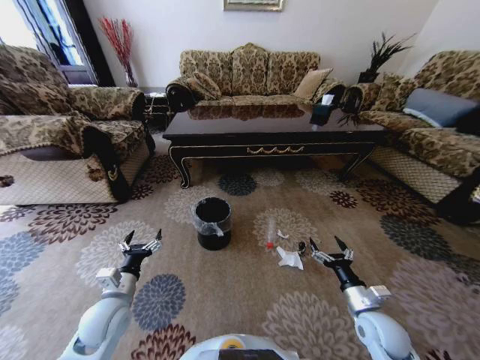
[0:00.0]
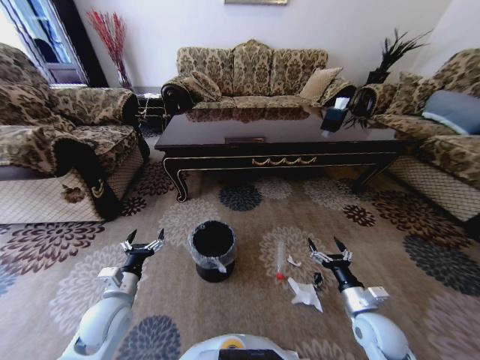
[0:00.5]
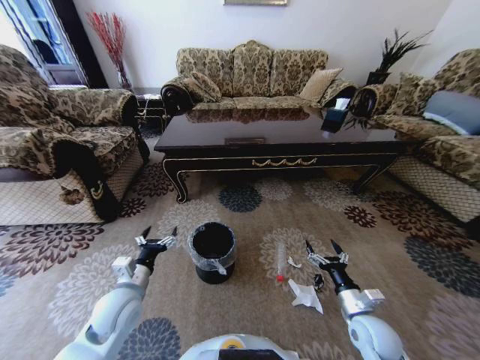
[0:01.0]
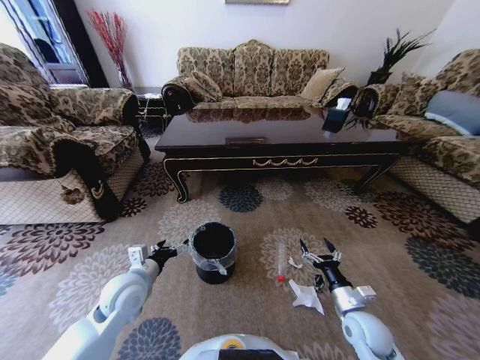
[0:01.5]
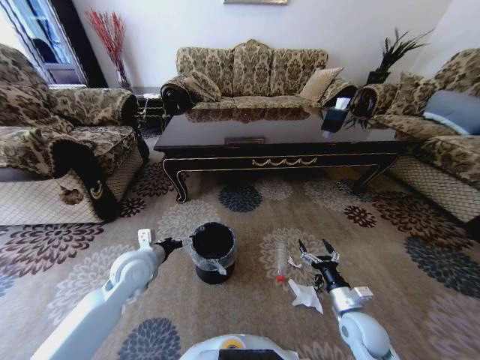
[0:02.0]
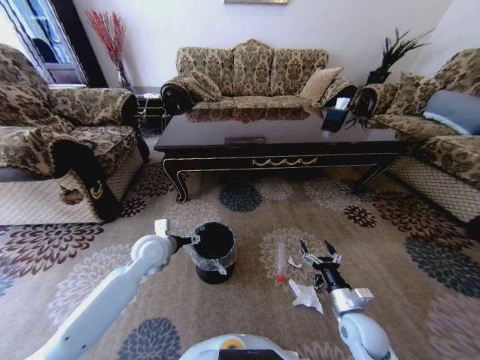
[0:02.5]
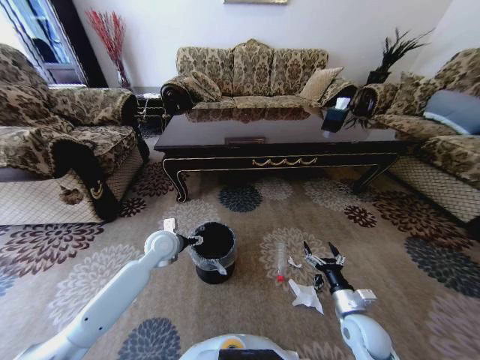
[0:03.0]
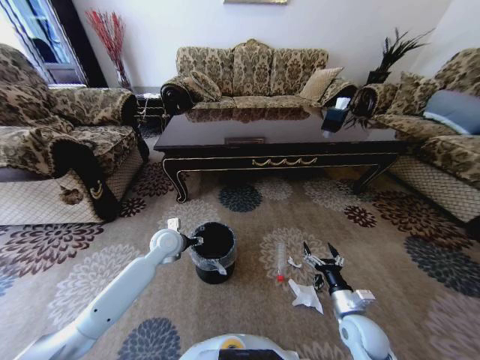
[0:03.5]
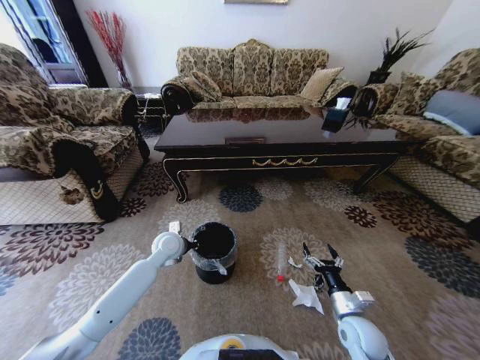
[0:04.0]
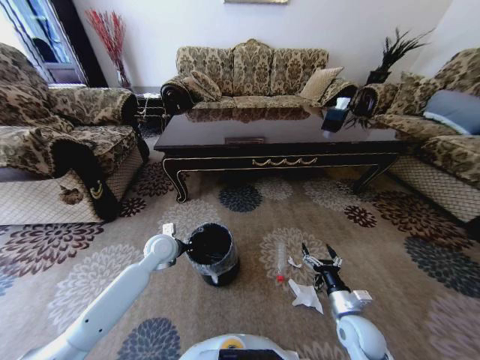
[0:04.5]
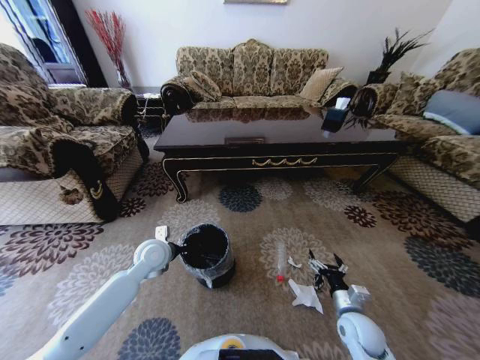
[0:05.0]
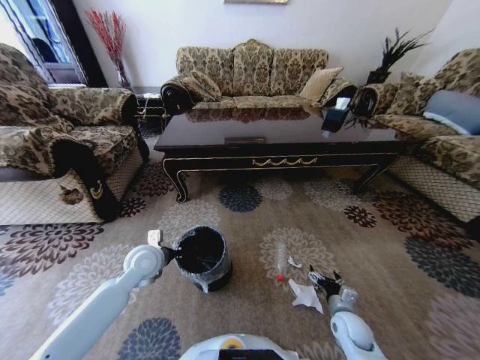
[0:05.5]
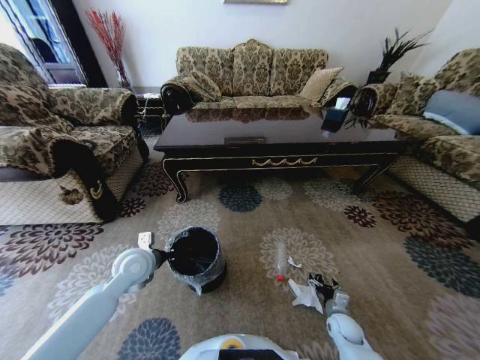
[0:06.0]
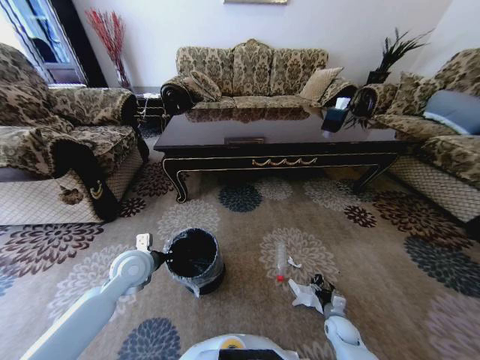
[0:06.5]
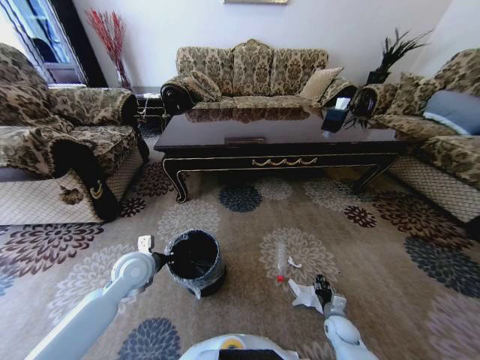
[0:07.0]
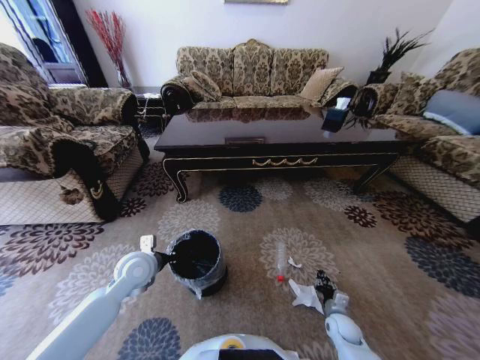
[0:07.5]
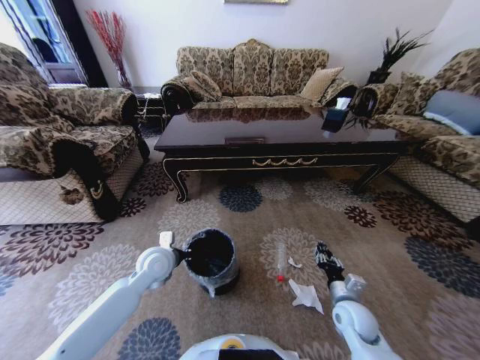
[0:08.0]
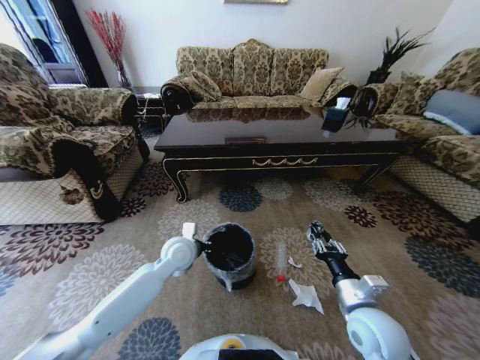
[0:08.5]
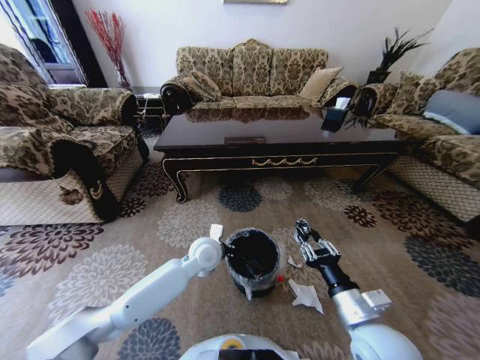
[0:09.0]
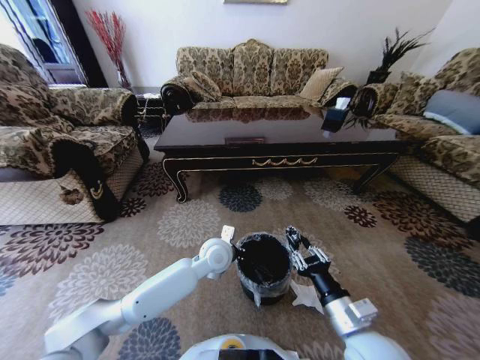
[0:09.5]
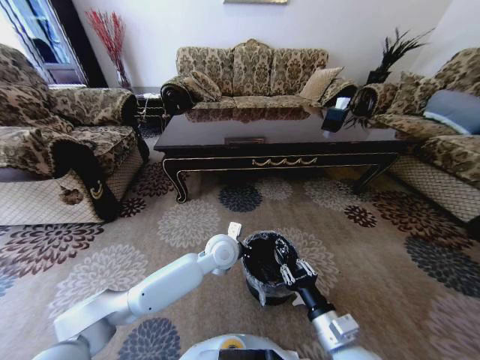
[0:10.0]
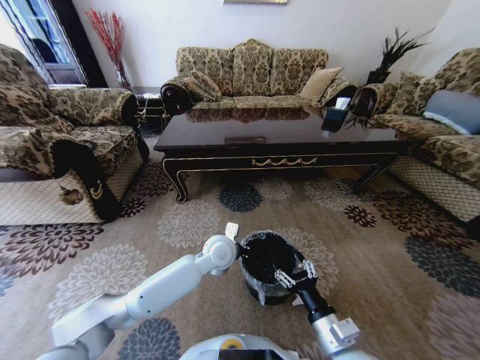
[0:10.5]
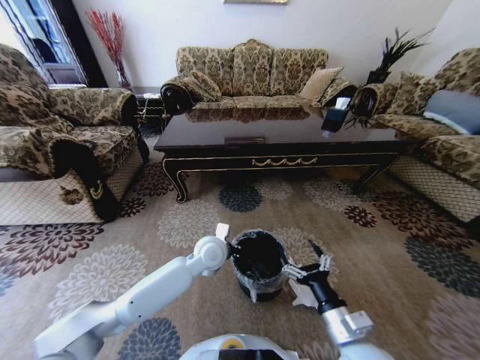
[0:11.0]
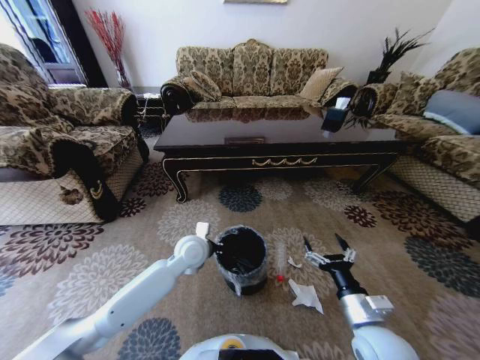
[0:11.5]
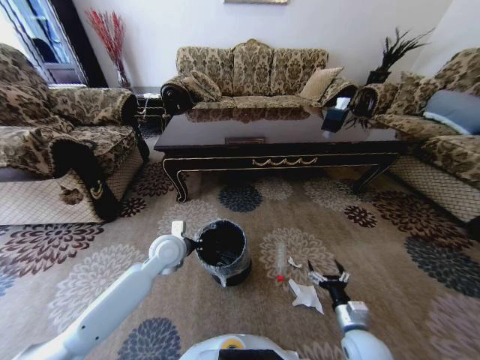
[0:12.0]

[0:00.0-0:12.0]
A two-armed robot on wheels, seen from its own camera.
Task of the whole recording: Move to the front of the table and pick up the trash from the floor, then place it into the trash bin.
0.0 to 2.0 s: The left gripper goes roughly 10 cm forward and upward.
2.0 to 4.0 s: The left gripper is displaced forward, downward and to the right by roughly 10 cm, and closes its fingers.
4.0 to 6.0 s: The right gripper shifts about 15 cm downward. Meanwhile the left gripper moves backward and to the left, some 10 cm.
6.0 to 8.0 s: The left gripper ends up approximately 5 cm from where it was, while the right gripper is displaced upward by about 15 cm, and closes up.
8.0 to 10.0 s: The right gripper heads backward, to the left and upward, covering about 20 cm, while the left gripper moves to the right, some 20 cm.
10.0 to 12.0 s: The right gripper travels downward and to the right by about 15 cm, and opens up. The left gripper shifts roughly 15 cm to the left.

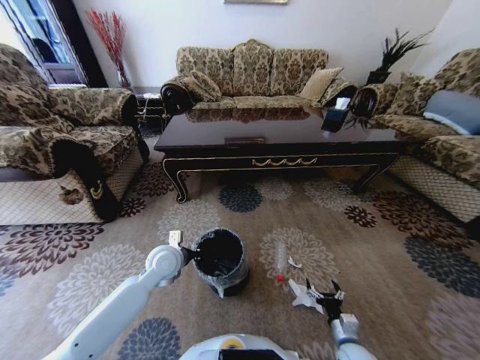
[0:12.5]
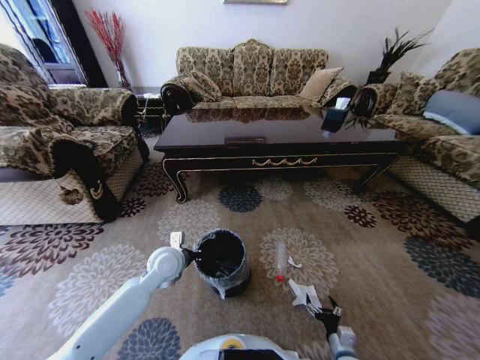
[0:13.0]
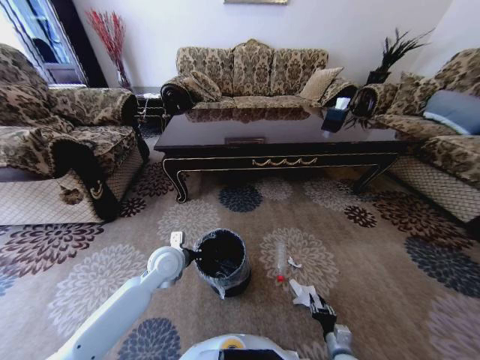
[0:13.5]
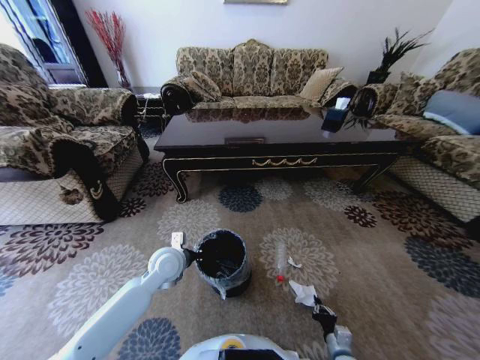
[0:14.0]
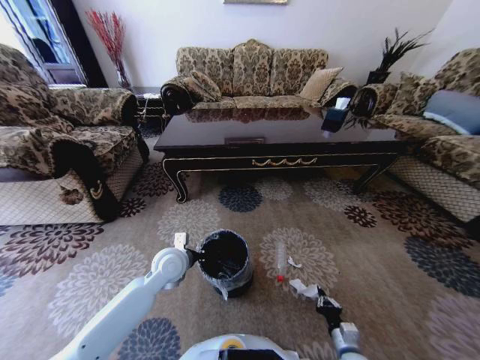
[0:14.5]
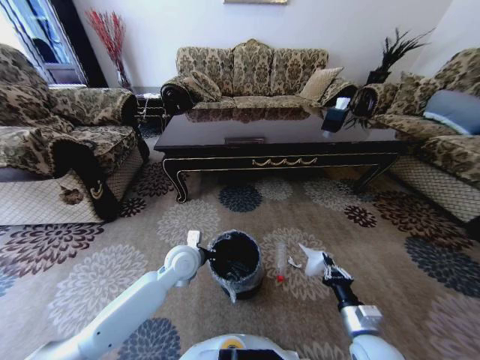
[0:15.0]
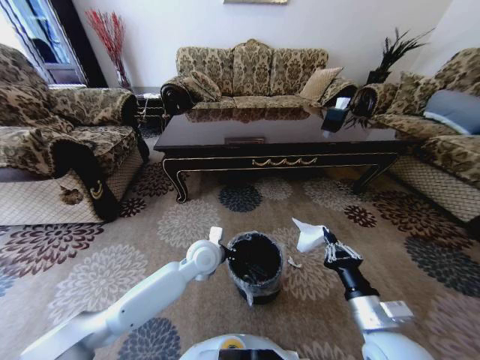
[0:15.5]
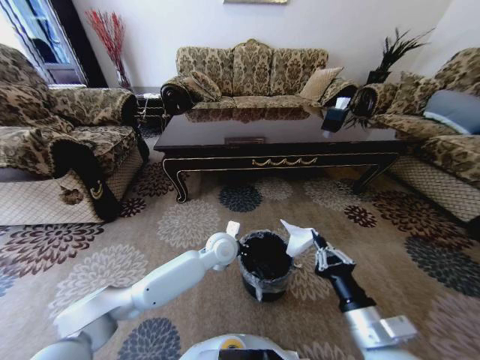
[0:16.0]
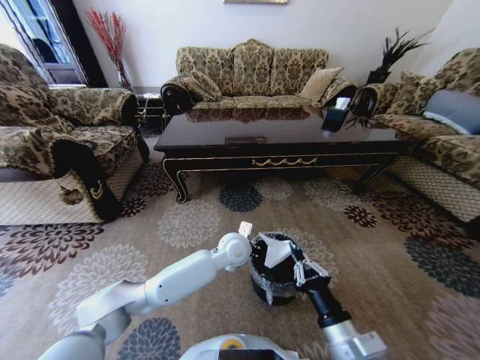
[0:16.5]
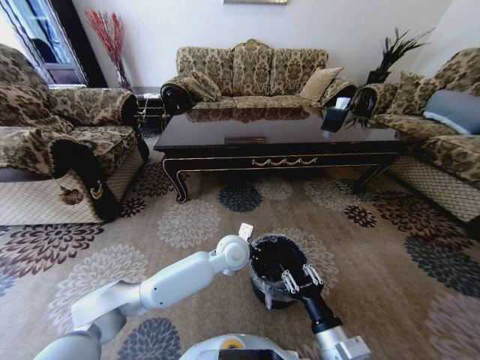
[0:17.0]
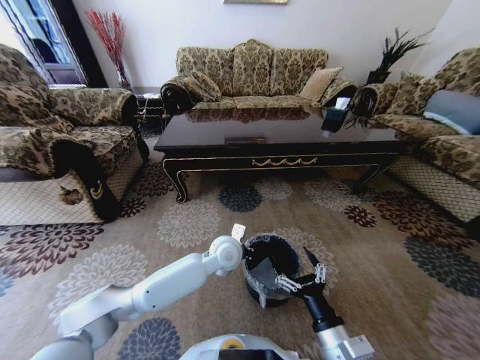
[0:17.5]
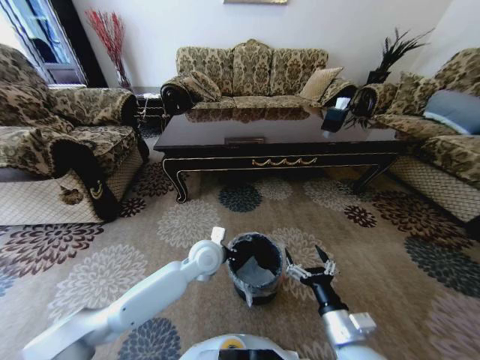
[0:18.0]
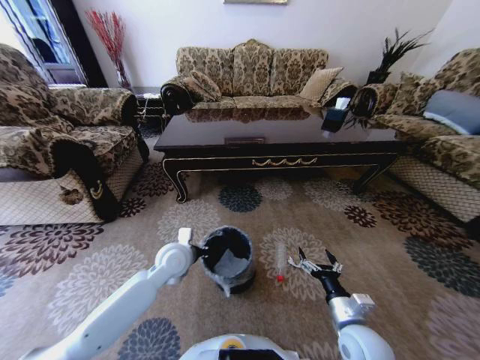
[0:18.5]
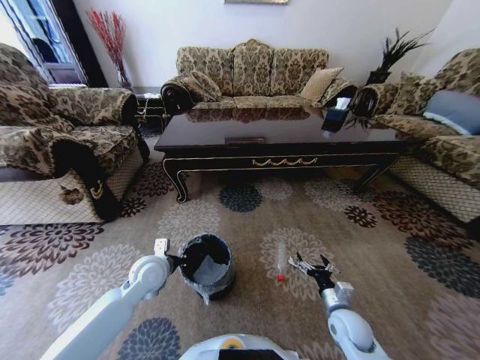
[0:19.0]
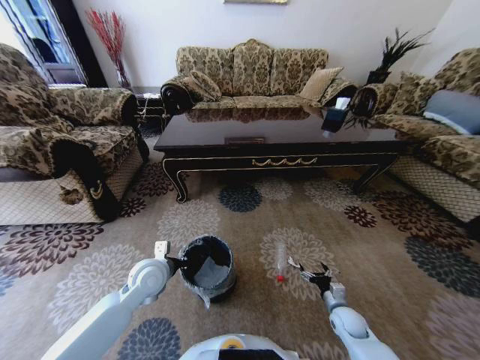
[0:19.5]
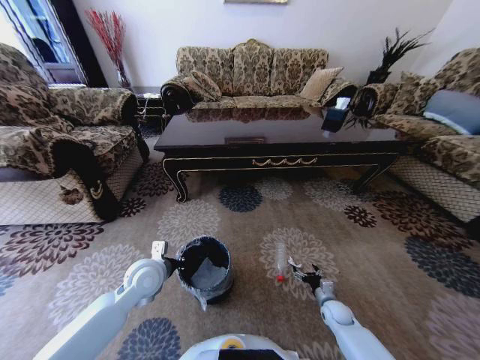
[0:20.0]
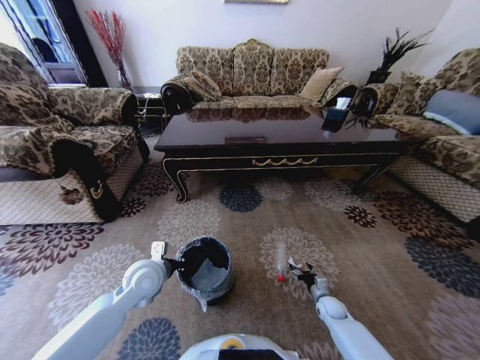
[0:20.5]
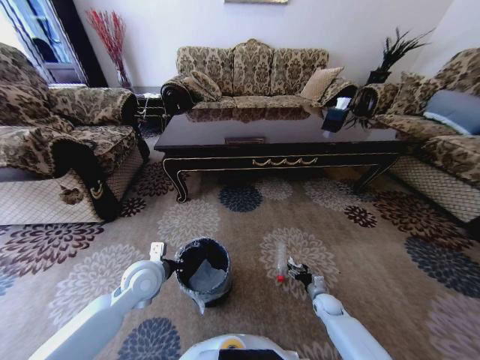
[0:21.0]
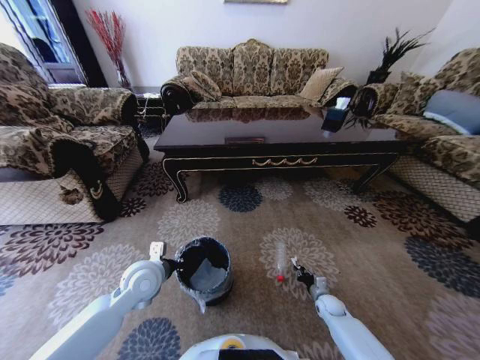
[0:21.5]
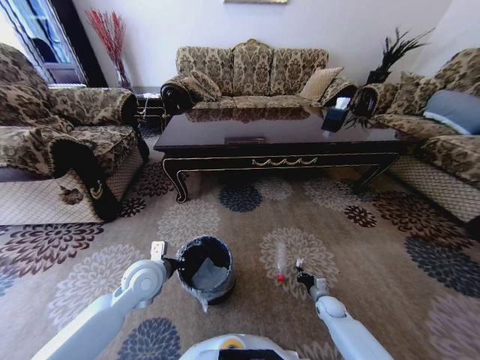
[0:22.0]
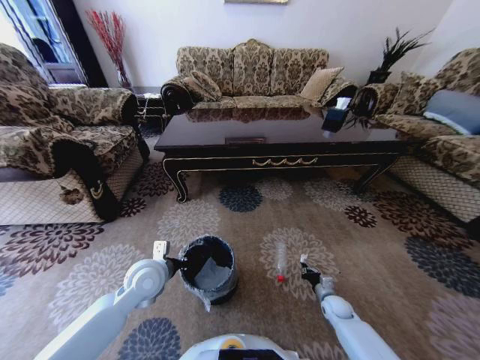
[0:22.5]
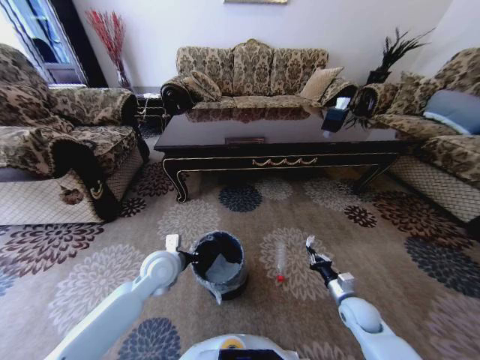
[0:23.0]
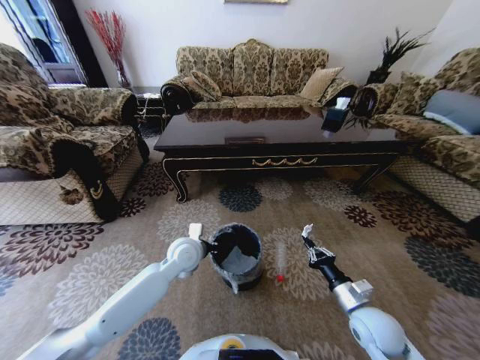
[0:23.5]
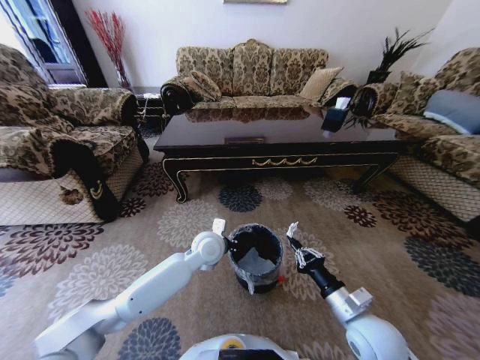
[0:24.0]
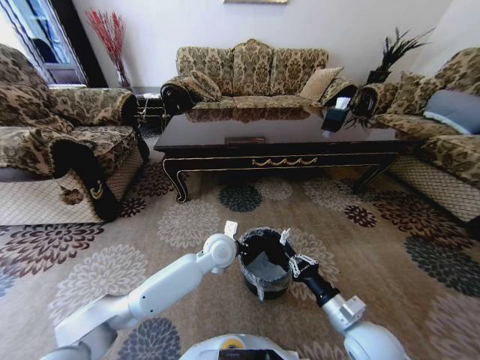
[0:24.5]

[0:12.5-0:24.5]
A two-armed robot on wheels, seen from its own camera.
Task of the whole recording: Move to the front of the table and pick up the trash from the floor, then place it into the trash bin.
12.5 to 14.5 s: The right gripper closes.
14.5 to 16.5 s: The left gripper travels to the right by roughly 20 cm; the right gripper is displaced upward and to the left by about 30 cm.
16.5 to 18.5 s: The right gripper moves downward, to the right and forward, roughly 10 cm, and opens its fingers, while the left gripper shifts about 20 cm to the left.
18.5 to 20.5 s: The right gripper travels downward and forward by some 25 cm. Meanwhile the left gripper heads to the left, covering roughly 5 cm.
20.5 to 22.5 s: The right gripper closes its fingers.
22.5 to 24.5 s: The right gripper goes roughly 30 cm upward, backward and to the left, while the left gripper goes roughly 20 cm to the right.

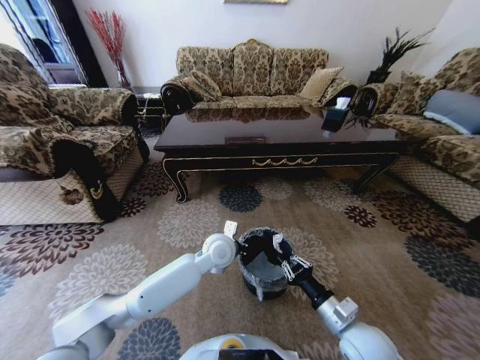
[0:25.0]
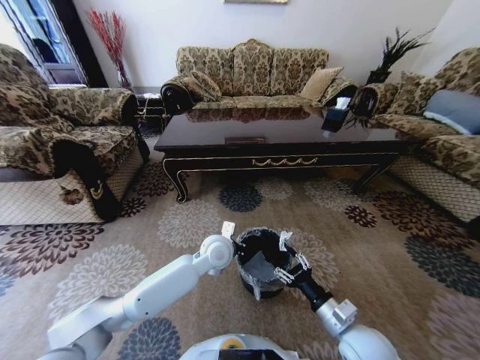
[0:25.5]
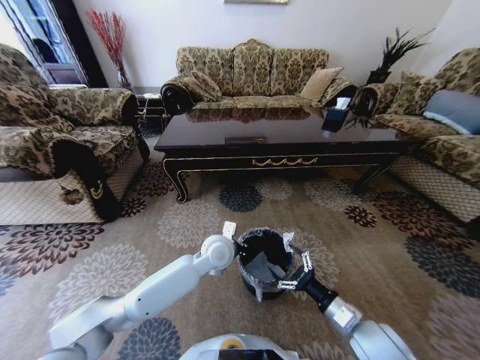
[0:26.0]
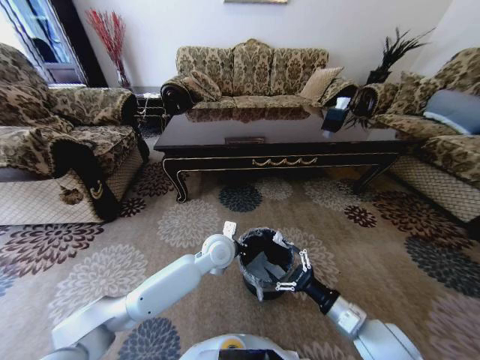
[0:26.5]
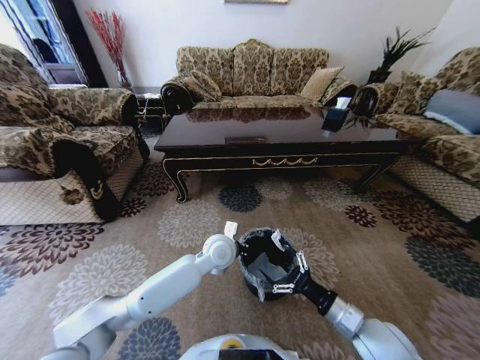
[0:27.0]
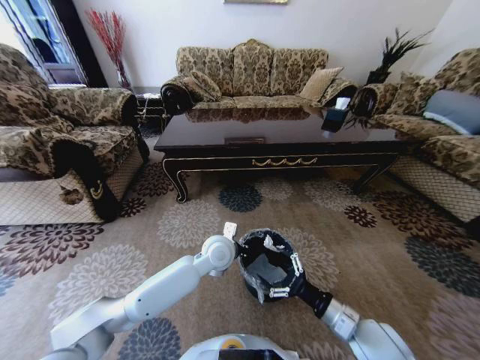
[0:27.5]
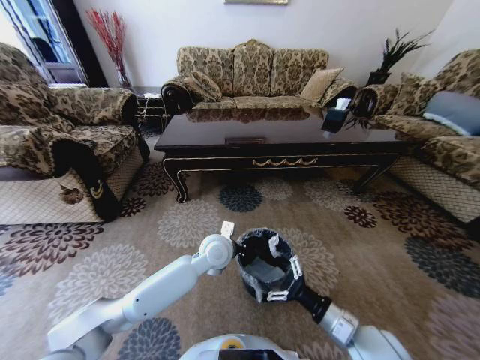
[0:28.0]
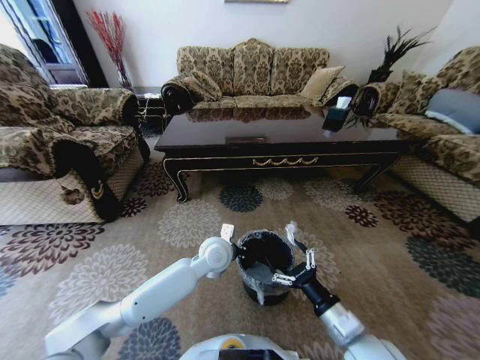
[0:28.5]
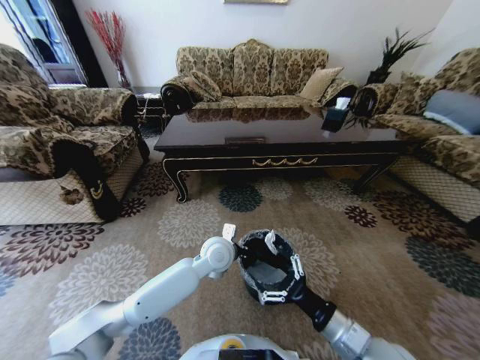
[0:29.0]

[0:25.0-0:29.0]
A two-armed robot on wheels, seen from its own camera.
Task of the whole recording: Move to the front of the table and pick up the trash from the floor, then place it into the trash bin.
25.0 to 27.0 s: The right gripper opens.
27.0 to 29.0 s: The right gripper ends up some 10 cm from where it was.
